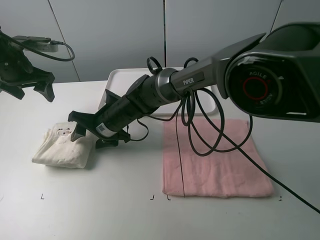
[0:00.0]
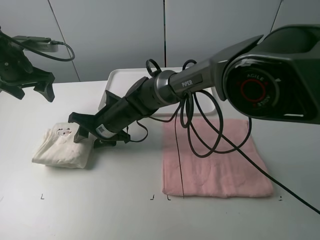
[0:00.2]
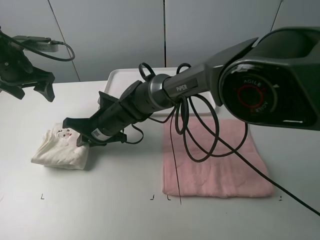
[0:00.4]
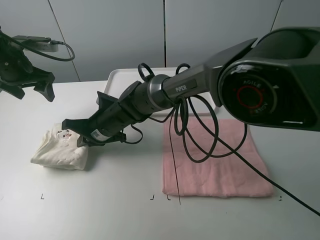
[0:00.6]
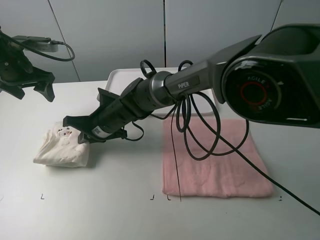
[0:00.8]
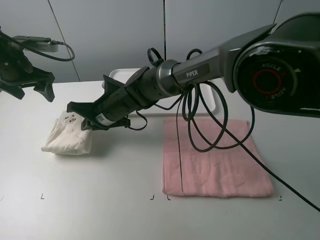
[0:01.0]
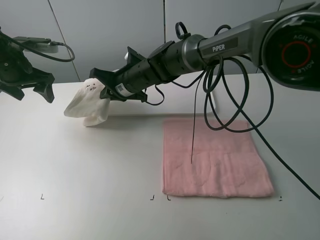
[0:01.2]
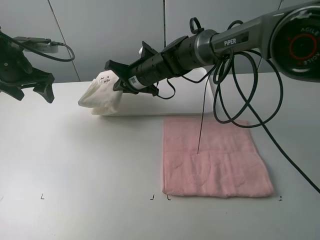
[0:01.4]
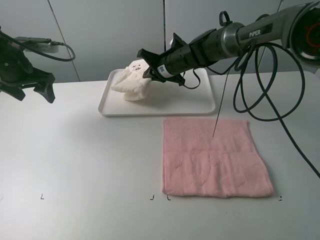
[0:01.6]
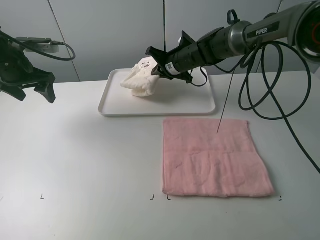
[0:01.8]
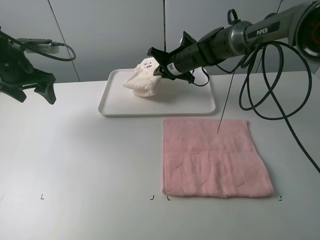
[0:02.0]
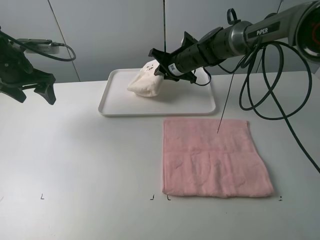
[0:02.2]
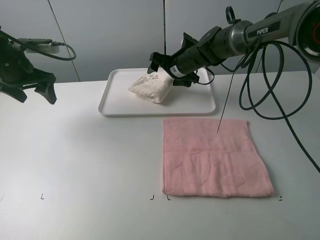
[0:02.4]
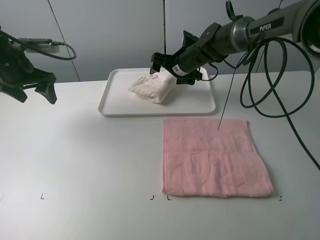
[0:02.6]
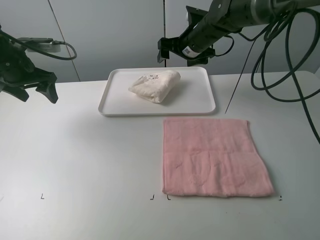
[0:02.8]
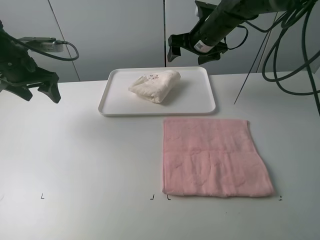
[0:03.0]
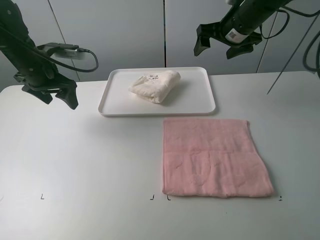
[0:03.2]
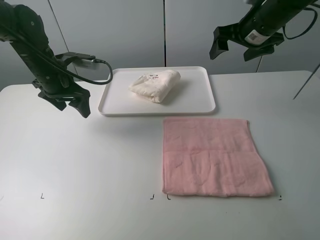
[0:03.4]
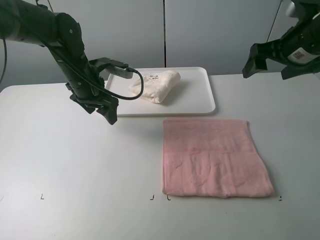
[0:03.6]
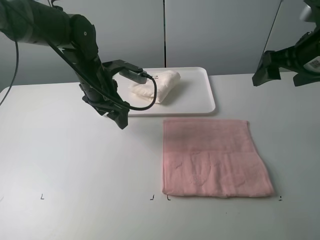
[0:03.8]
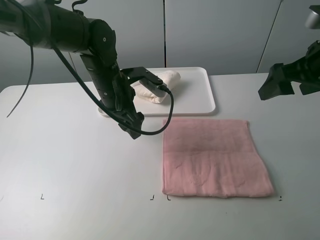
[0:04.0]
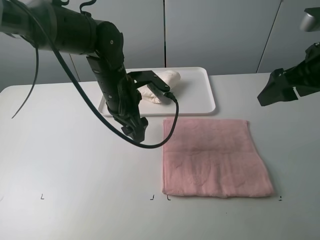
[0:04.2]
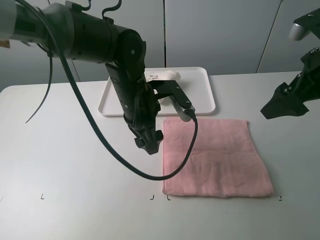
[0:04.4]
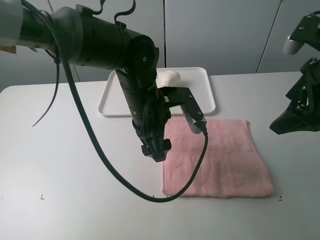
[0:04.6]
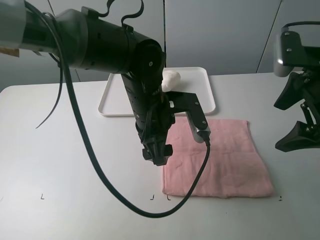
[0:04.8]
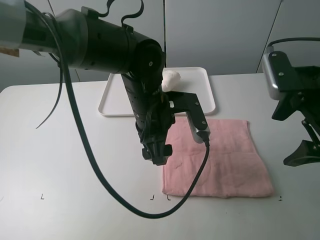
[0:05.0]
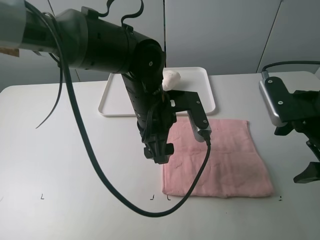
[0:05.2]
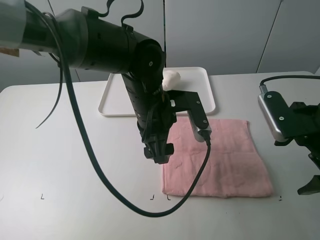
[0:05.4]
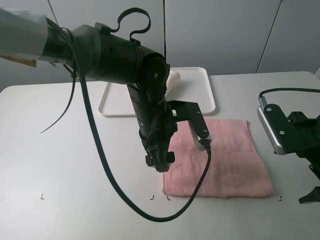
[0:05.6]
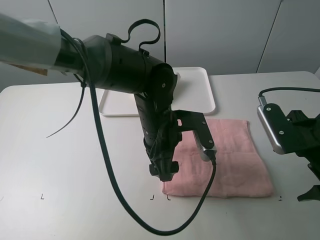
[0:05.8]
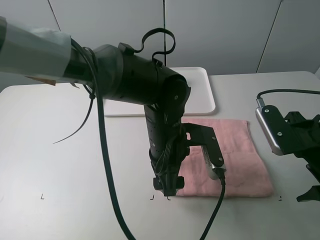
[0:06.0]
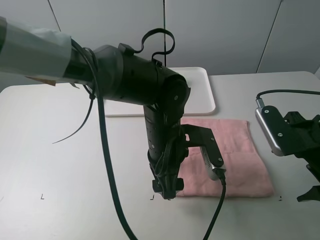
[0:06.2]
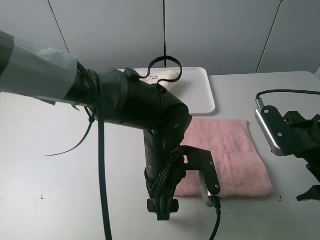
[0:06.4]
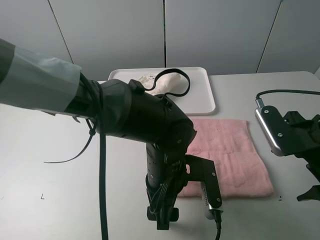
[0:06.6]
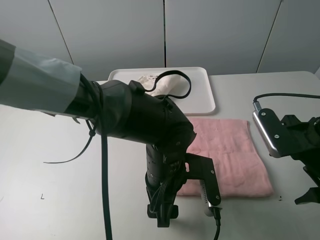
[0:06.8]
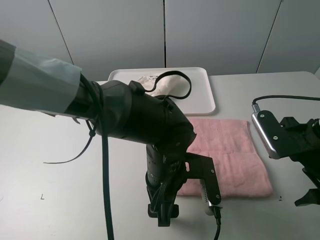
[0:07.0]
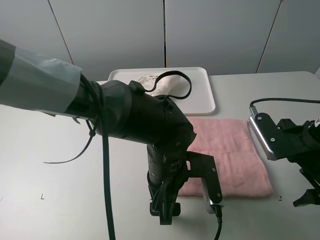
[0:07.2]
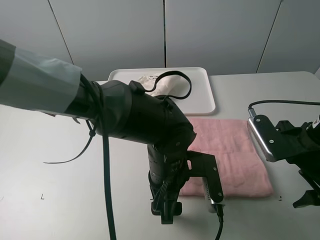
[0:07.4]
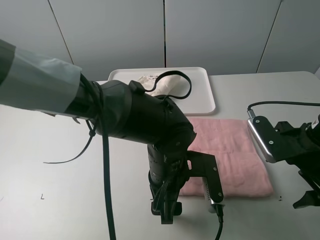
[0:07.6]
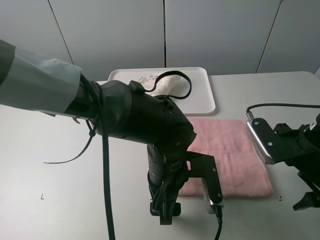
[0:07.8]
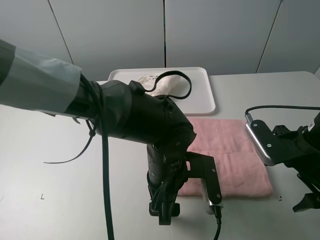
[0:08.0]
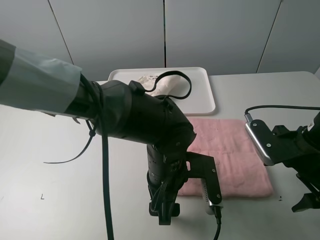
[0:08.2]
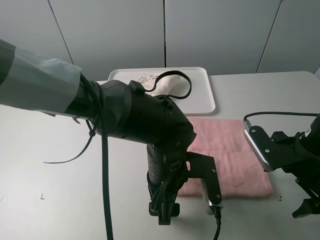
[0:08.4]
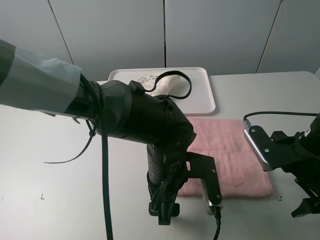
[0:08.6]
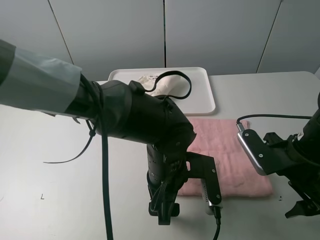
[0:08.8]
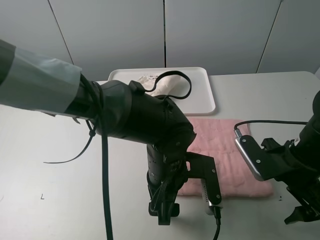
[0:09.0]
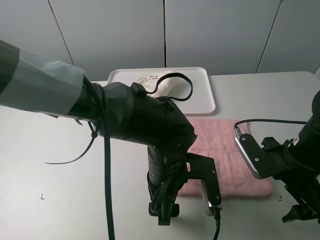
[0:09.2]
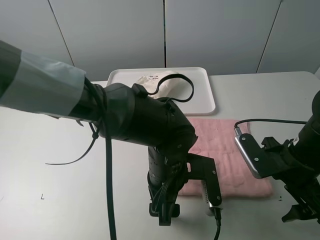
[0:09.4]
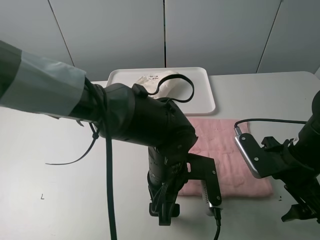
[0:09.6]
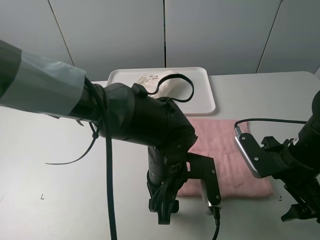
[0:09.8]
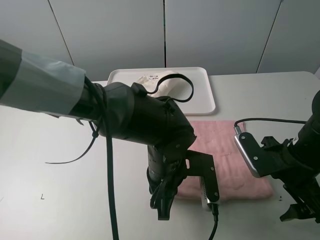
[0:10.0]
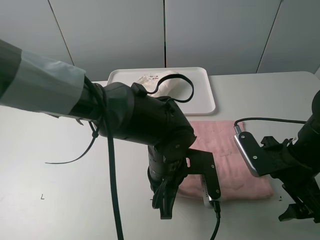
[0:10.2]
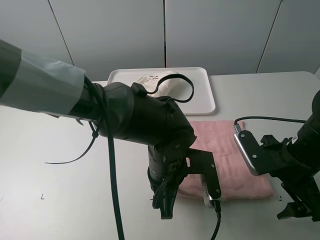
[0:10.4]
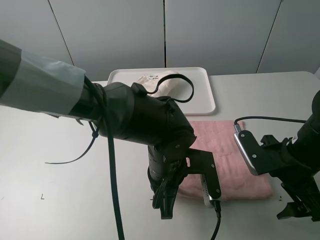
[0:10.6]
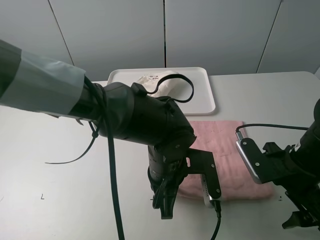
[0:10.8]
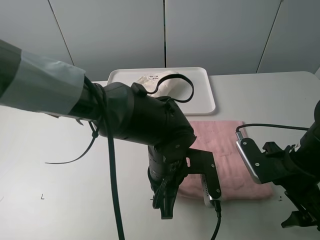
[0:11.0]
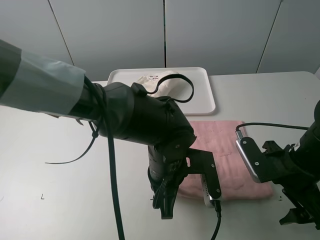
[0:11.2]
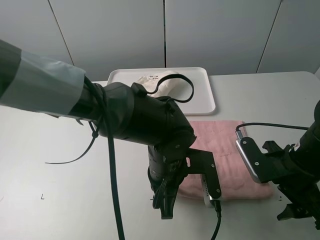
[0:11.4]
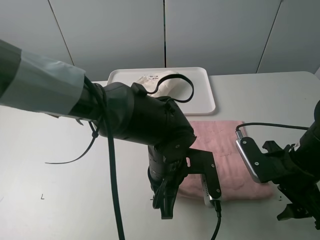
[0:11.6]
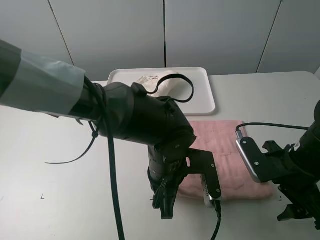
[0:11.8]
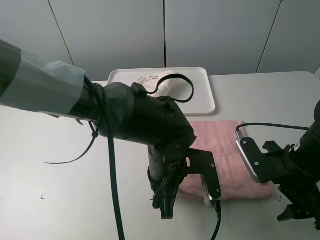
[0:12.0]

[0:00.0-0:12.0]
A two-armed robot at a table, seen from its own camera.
Task of the whole recording: fold one of the towels by two grippers and place it on the tray,then fold another towel by two grippers and place it on the folded towel.
Step, 0.6 to 2.4 s: Move the white towel to the plate with the right gripper.
0.0 to 1.6 s: The right gripper moves to the right and forward, about 20 cm, and closes its fingers.
1.6 to 3.0 s: The right gripper is displaced upward and to the right by about 10 cm, and opens up.
3.0 to 4.4 s: The left gripper goes about 25 cm to the right. Meanwhile the right gripper heads backward and to the right, covering some 25 cm.
4.4 to 6.0 s: The right gripper is displaced downward and backward by approximately 10 cm, while the left gripper travels backward and to the right by roughly 10 cm.
7.6 to 9.0 s: The grippers stay close to where they were, moving slightly.
9.0 to 10.4 s: The left gripper closes.
10.4 to 12.0 s: Both grippers stay put.

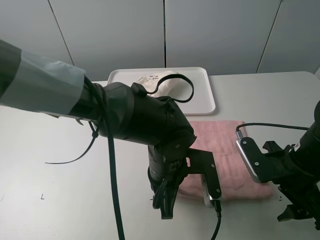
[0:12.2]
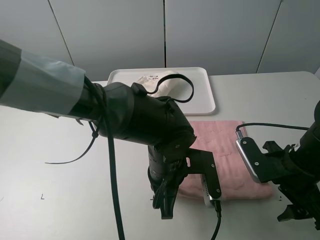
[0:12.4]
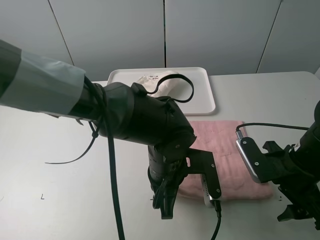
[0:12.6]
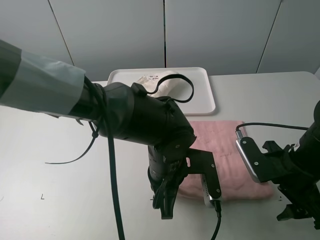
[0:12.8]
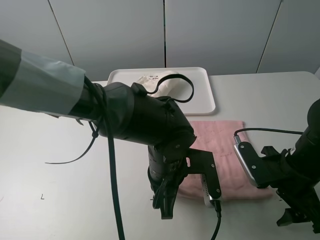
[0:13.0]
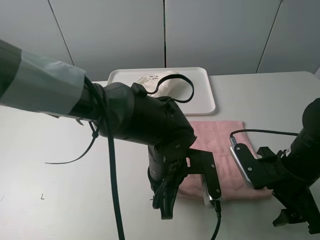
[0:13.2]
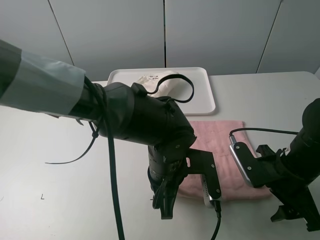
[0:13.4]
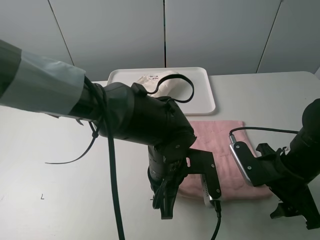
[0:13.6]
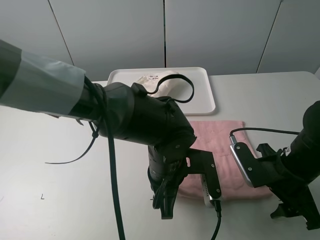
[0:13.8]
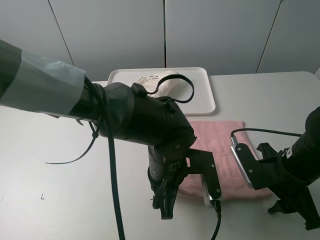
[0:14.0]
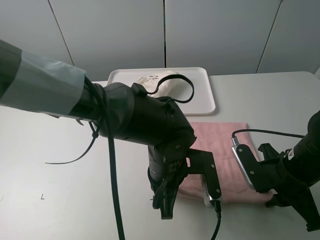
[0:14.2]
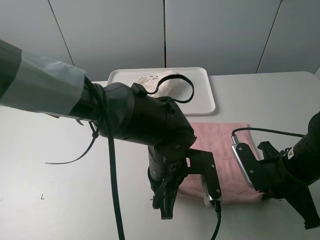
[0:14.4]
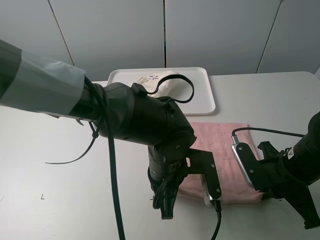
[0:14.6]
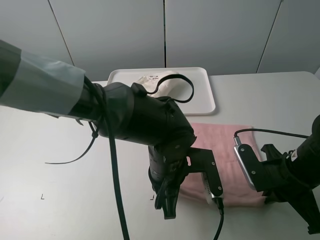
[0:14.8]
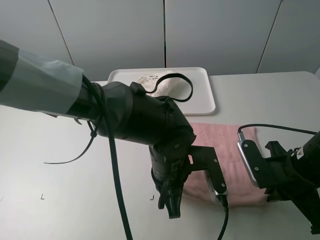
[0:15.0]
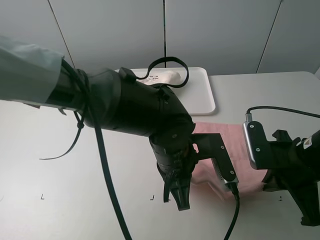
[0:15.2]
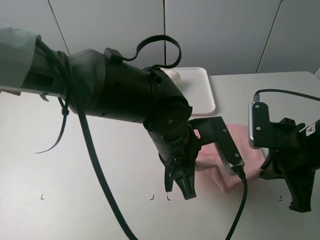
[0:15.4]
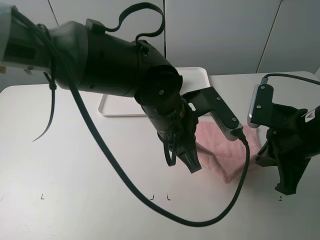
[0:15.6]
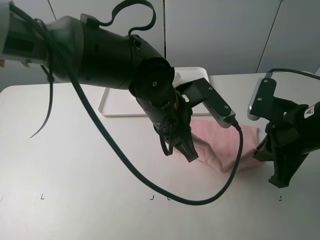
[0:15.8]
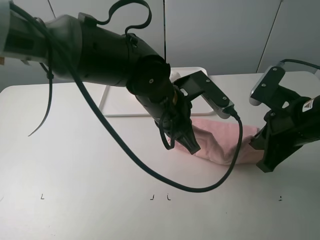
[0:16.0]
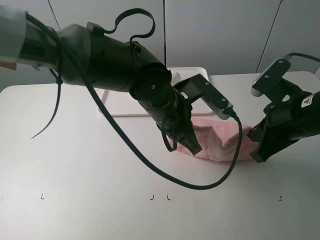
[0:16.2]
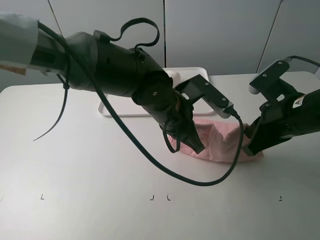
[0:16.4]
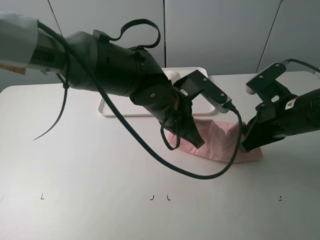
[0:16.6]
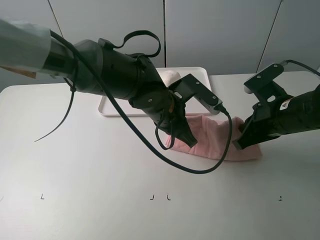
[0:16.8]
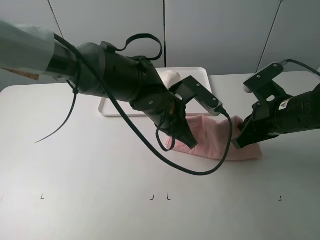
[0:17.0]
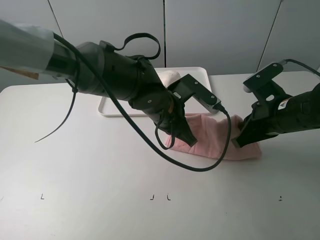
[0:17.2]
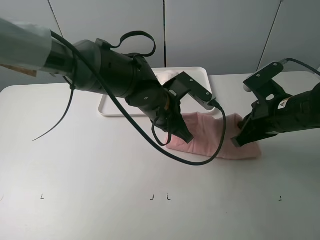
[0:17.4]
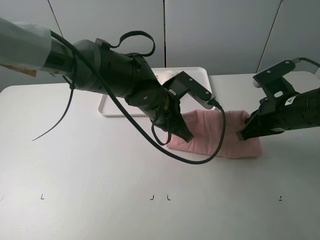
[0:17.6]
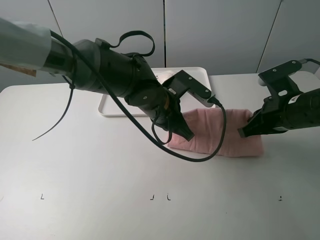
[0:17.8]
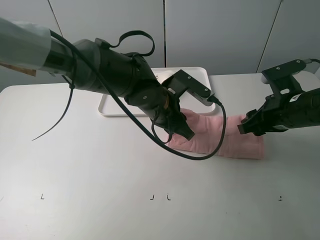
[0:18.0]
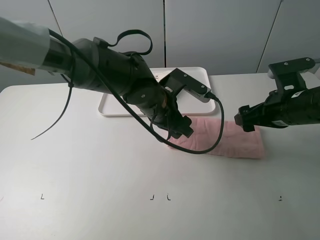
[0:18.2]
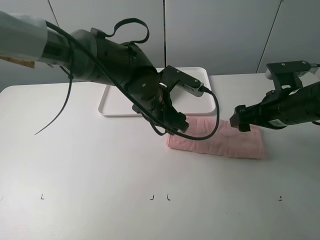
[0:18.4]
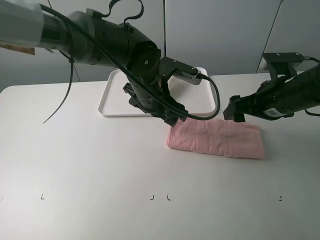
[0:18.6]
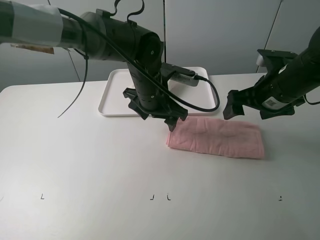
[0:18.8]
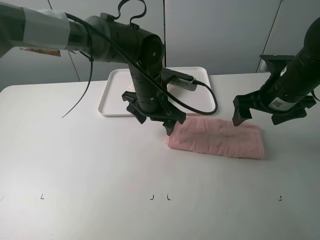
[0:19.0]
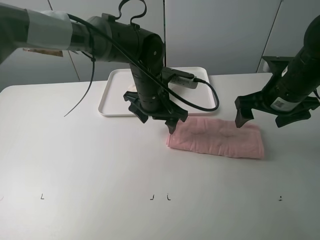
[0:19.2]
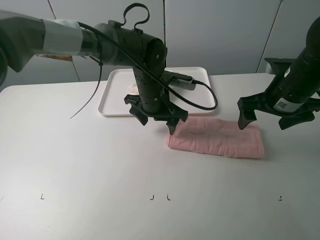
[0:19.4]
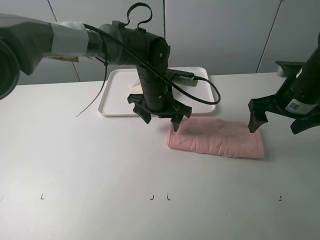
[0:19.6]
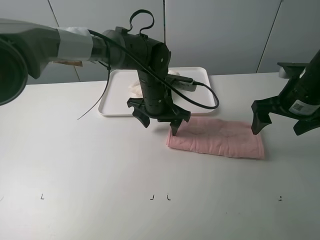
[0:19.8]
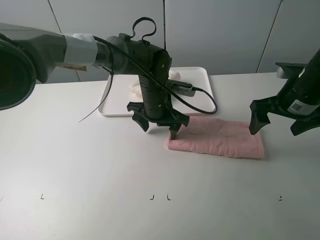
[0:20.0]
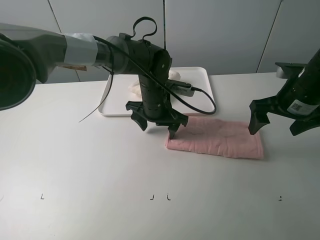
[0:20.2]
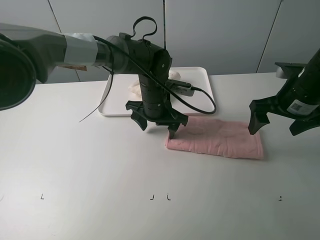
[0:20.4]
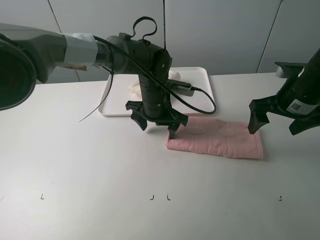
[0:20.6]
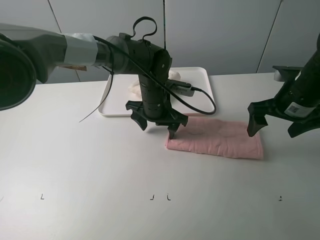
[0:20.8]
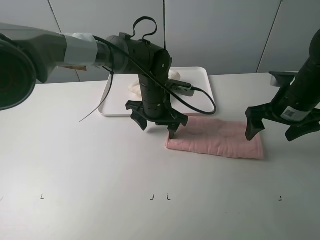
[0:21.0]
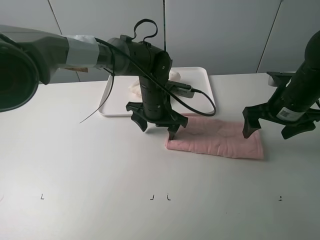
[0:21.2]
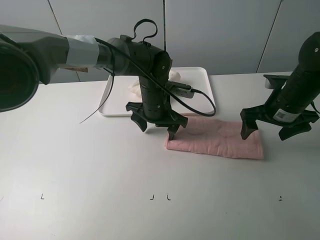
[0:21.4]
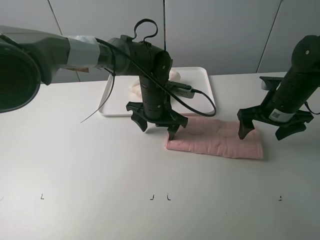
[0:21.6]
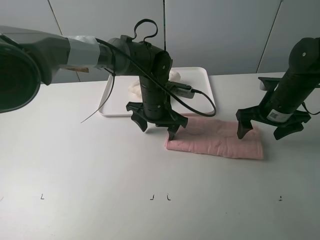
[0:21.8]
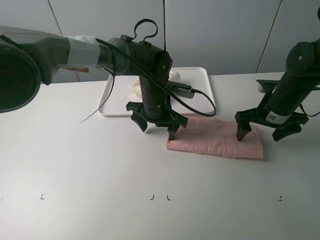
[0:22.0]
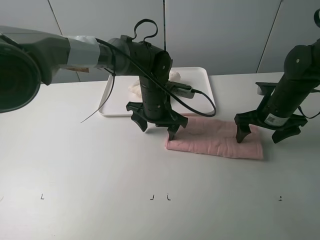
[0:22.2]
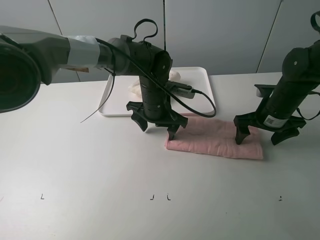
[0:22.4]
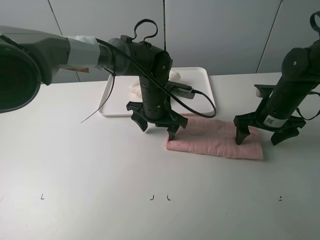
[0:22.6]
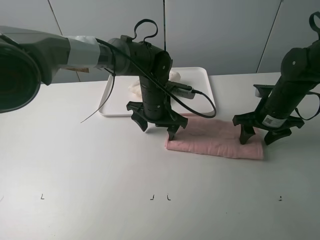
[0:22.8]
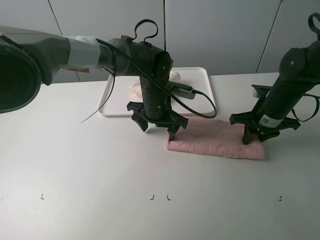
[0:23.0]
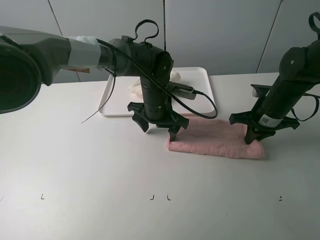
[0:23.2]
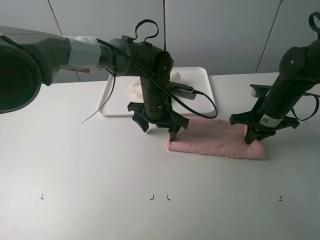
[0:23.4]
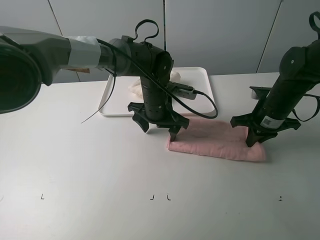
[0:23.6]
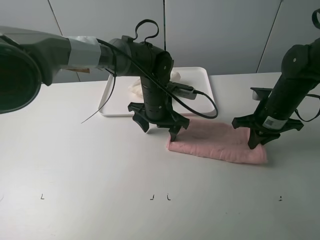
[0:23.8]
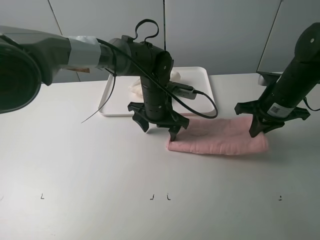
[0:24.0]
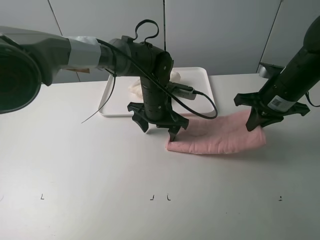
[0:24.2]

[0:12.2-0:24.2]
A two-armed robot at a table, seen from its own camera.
Task of the whole recording: fold one of the towels by two grippers and place it on the tray,then fold another towel by two grippers and place it on the folded towel.
Step, 15.0 to 18.2 s: Fold the pink towel upwards with the left gripper.
Step, 18.4 to 20.2 s: Press the pink towel with the left gripper.
Step, 20.4 to 23.2 s: Grasp the pink towel with the right gripper.
12.2 to 13.8 s: The grippers move only a little.
13.8 to 15.2 s: The right gripper closes.
15.2 to 16.6 s: Both grippers travel together forward, roughly 5 cm.
16.6 to 18.2 s: The right gripper opens. Meanwhile the left gripper opens.
18.2 to 19.8 s: The left gripper goes some 5 cm forward.
19.8 to 21.2 s: The grippers stay close to where they were, moving slightly.
21.2 to 22.6 s: The right gripper ends up some 5 cm from where it was.
22.6 to 24.2 s: The right gripper travels upward by some 5 cm, and closes up.
